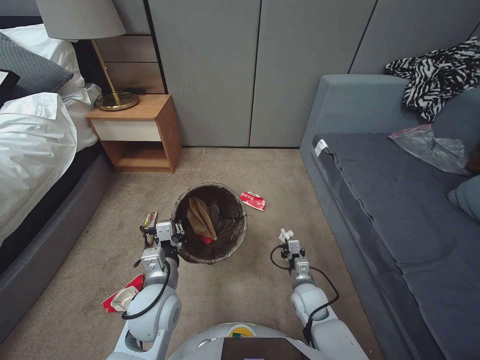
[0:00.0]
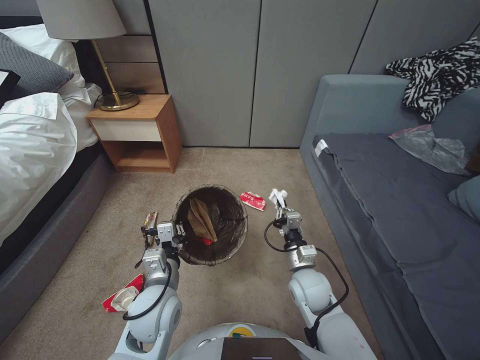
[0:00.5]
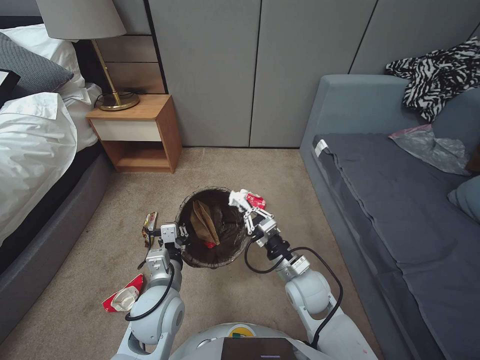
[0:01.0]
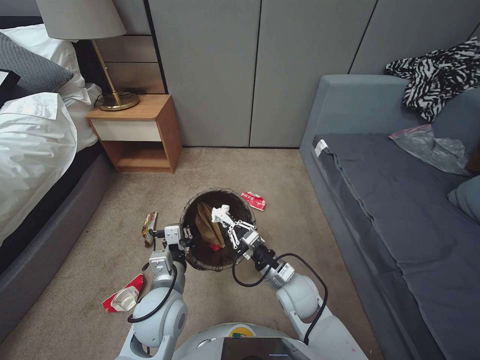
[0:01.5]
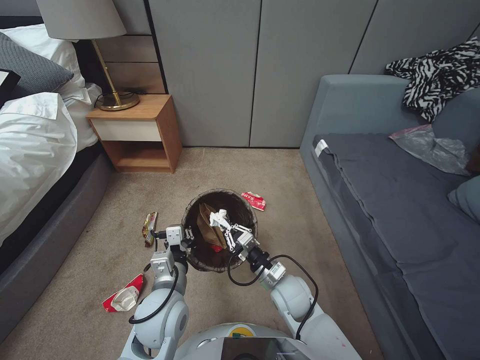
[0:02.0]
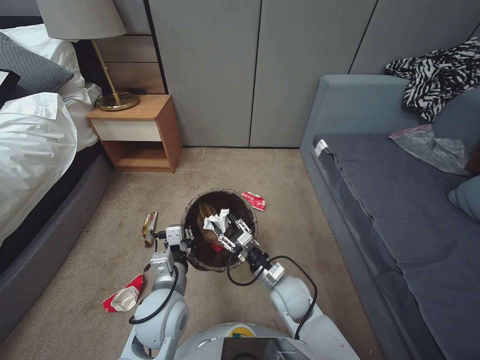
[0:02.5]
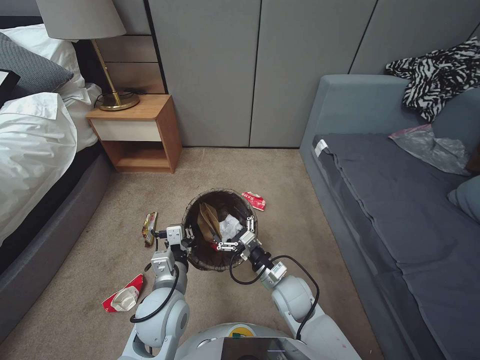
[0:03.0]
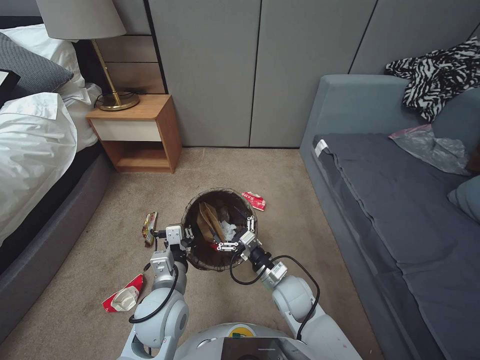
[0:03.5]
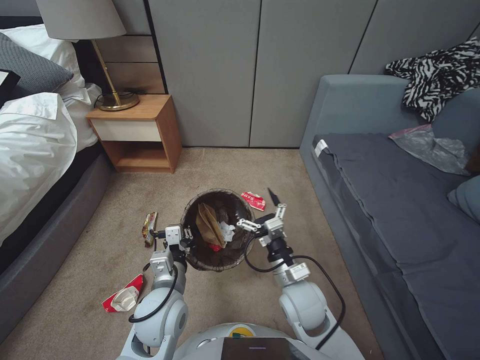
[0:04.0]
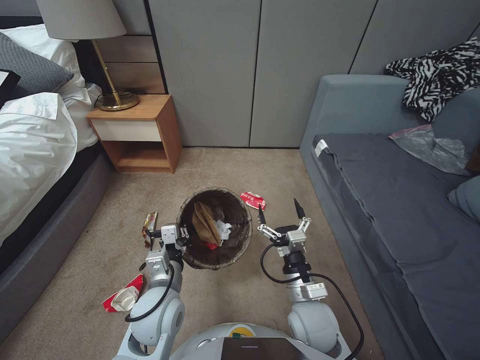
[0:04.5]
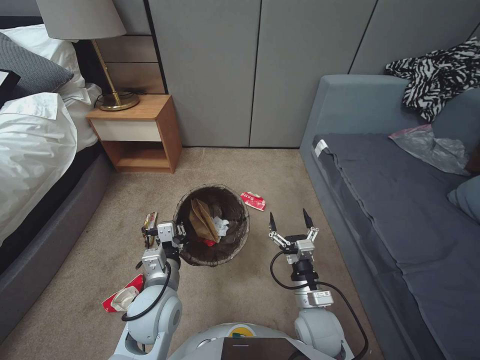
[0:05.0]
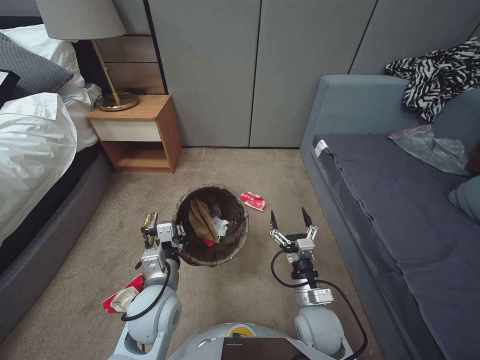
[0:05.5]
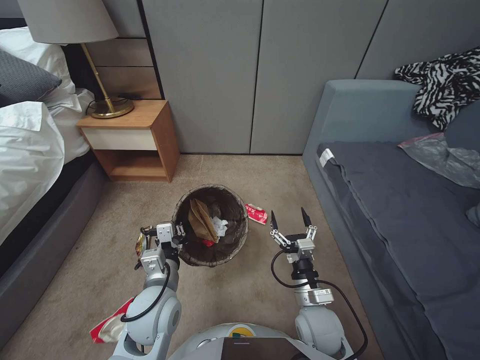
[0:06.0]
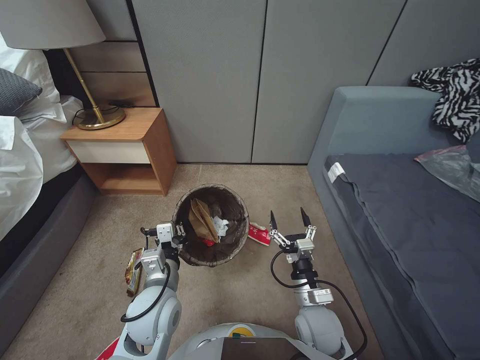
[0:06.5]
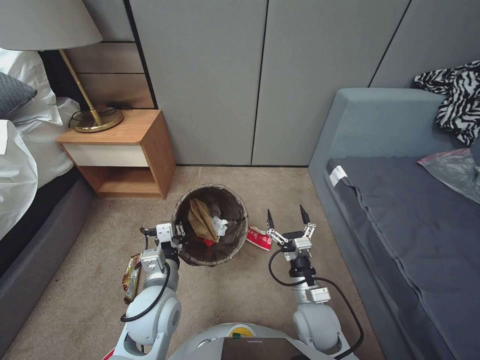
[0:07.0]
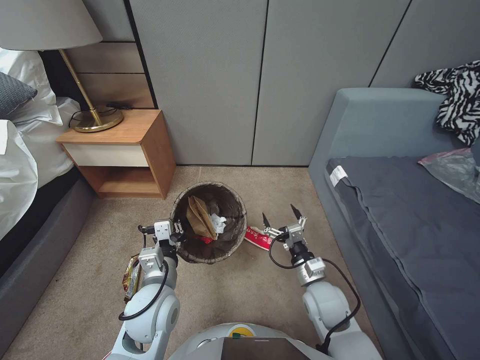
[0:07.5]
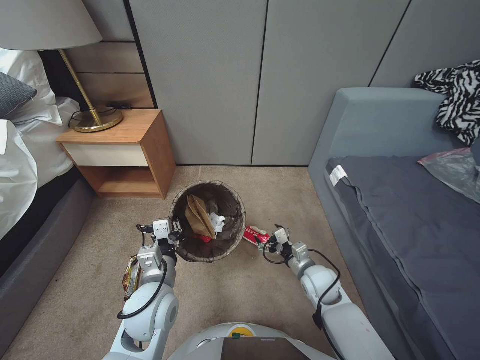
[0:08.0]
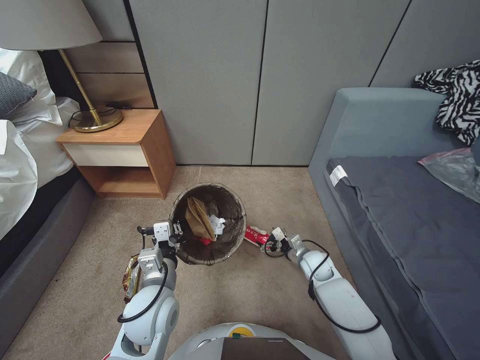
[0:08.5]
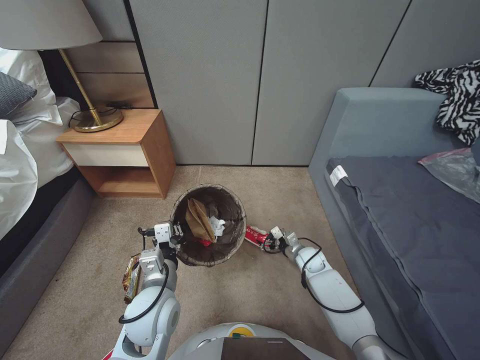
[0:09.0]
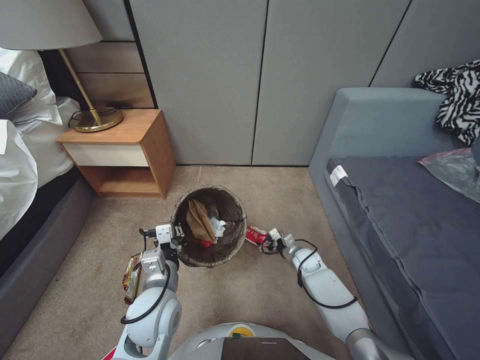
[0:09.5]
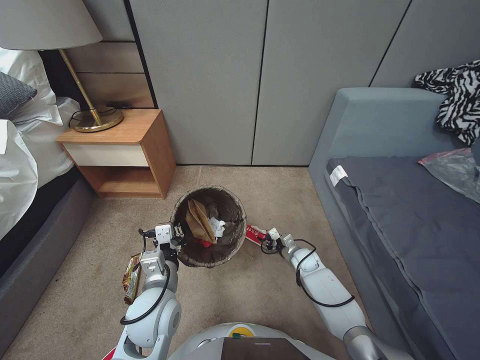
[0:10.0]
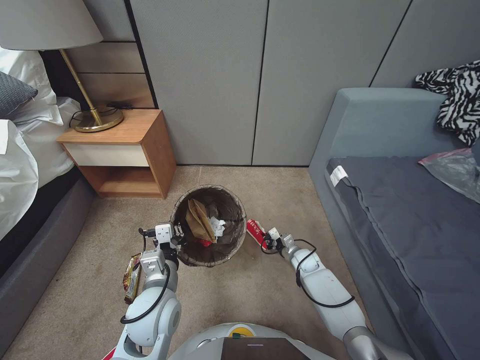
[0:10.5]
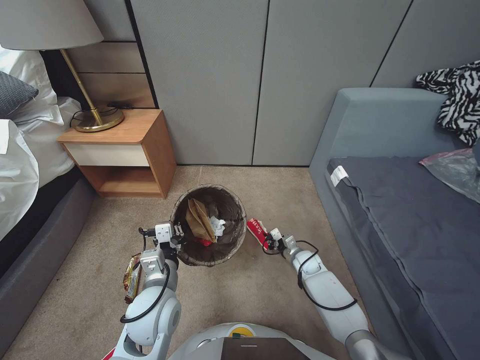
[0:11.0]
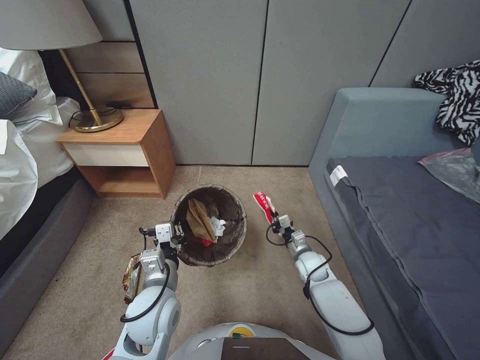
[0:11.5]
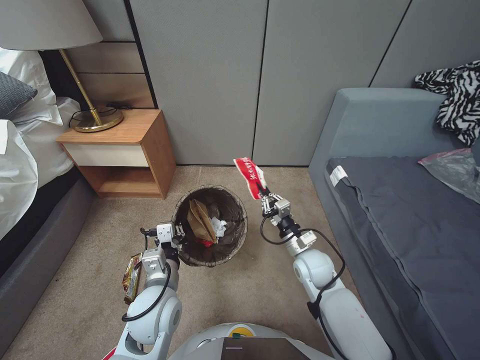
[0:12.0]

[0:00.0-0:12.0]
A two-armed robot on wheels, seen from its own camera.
Task of the whole recording: Pick up the trash bin, then pick up the garbage from the floor and place it into the trash bin.
0:00.0 to 0:02.0: The right gripper heads upward and to the left, covering roughly 15 cm.
0:02.0 to 0:04.0: The right gripper opens up.
0:04.0 to 0:06.0: The right gripper moves backward, about 5 cm.
0:06.0 to 0:08.0: The right gripper goes about 10 cm forward.
0:08.0 to 0:10.0: The right gripper is displaced downward and forward by some 20 cm, and closes its fingers.
0:10.0 to 0:12.0: The right gripper shifts about 20 cm upward and backward, and closes its fingers.

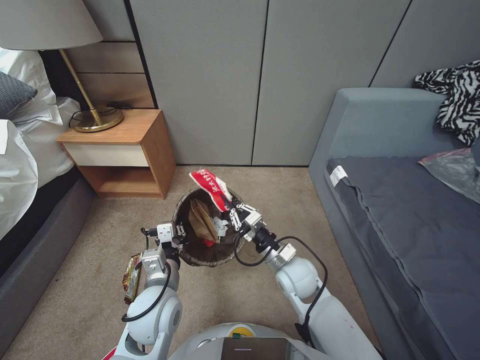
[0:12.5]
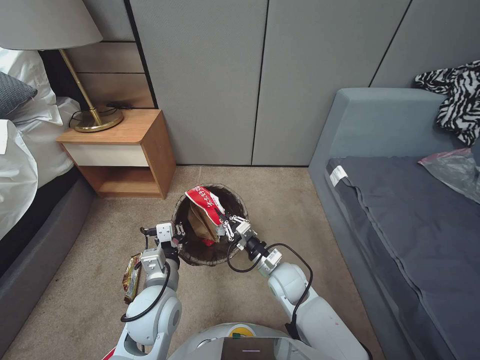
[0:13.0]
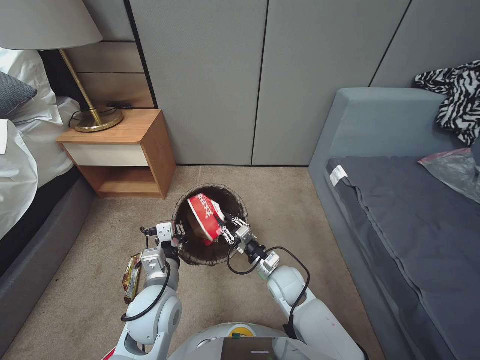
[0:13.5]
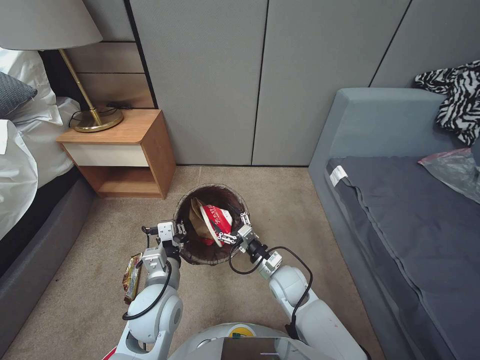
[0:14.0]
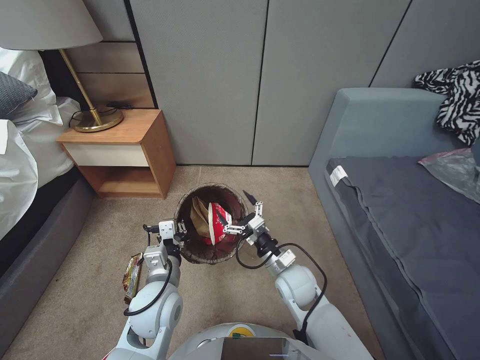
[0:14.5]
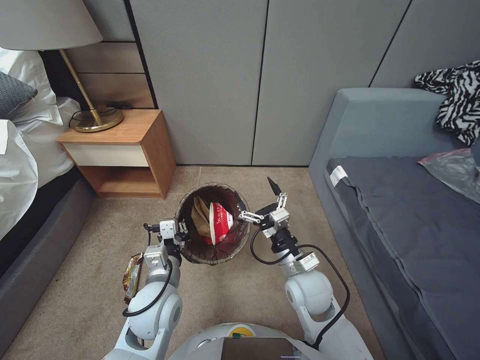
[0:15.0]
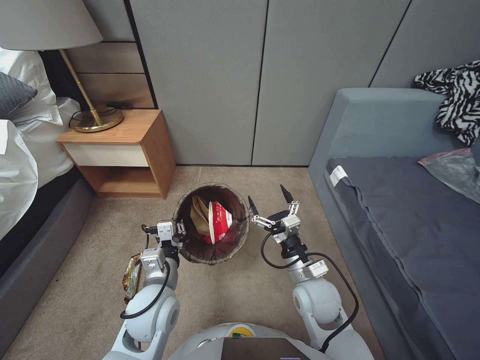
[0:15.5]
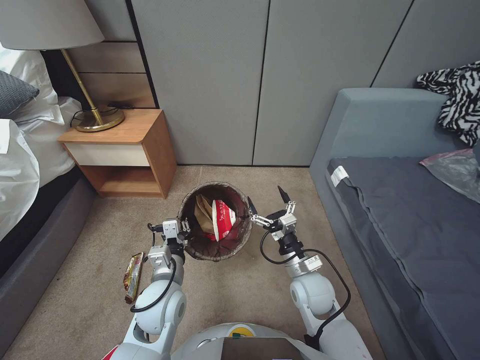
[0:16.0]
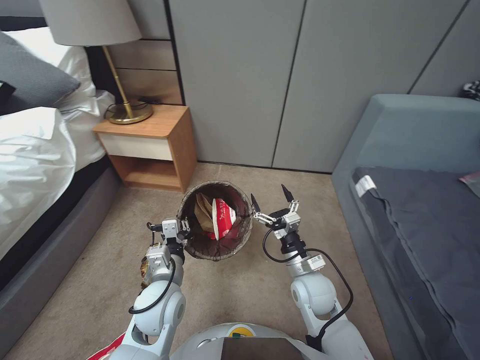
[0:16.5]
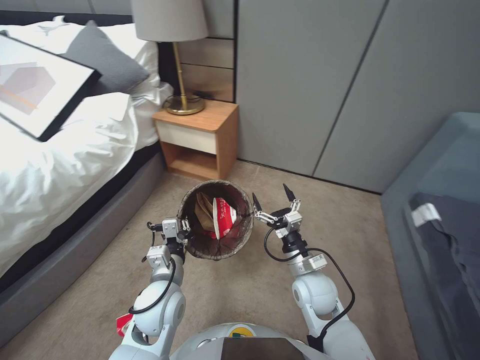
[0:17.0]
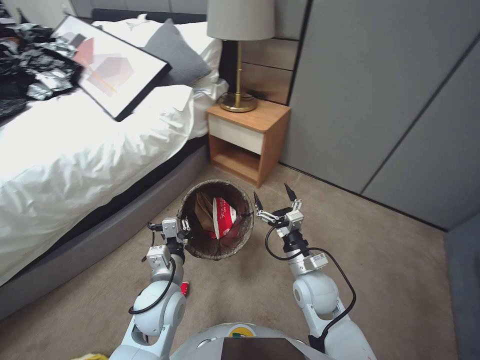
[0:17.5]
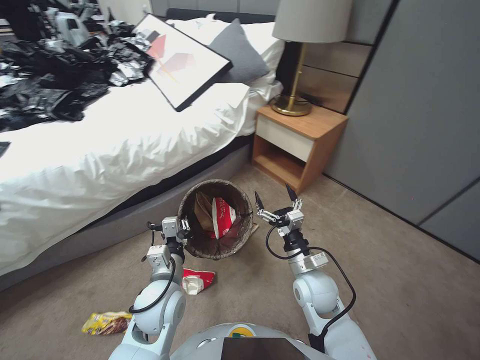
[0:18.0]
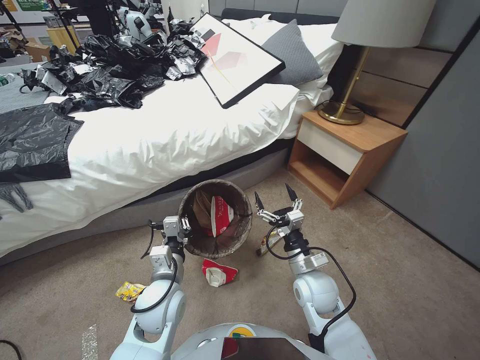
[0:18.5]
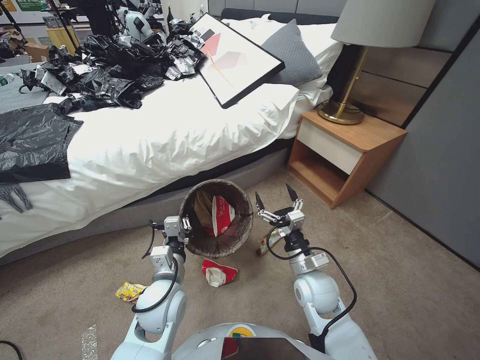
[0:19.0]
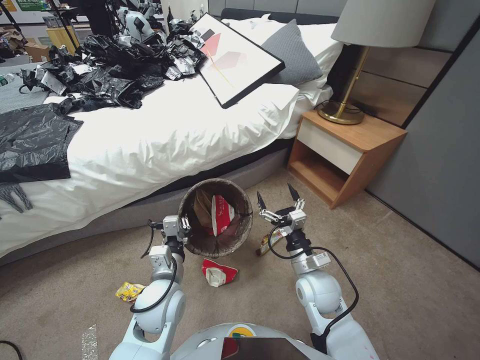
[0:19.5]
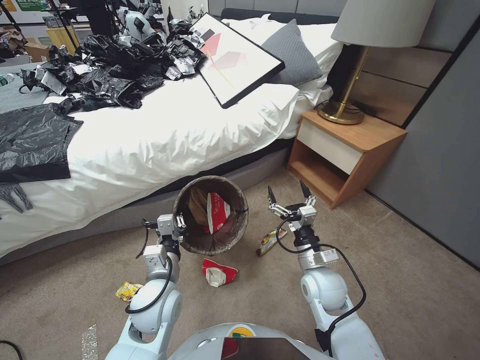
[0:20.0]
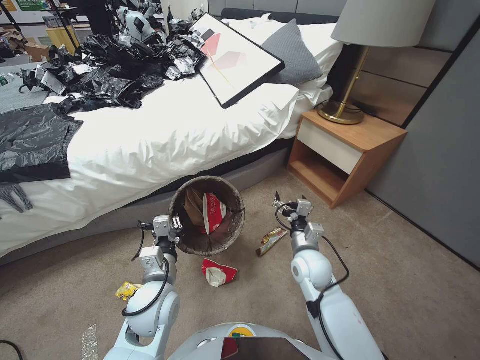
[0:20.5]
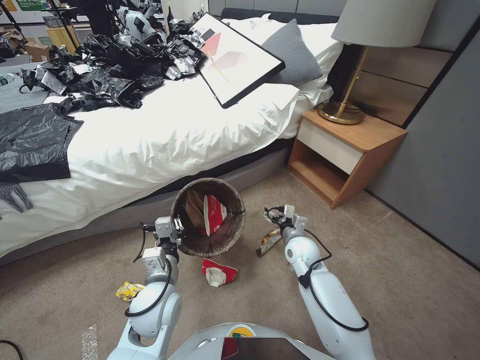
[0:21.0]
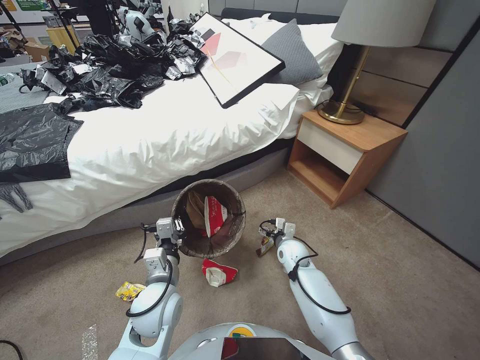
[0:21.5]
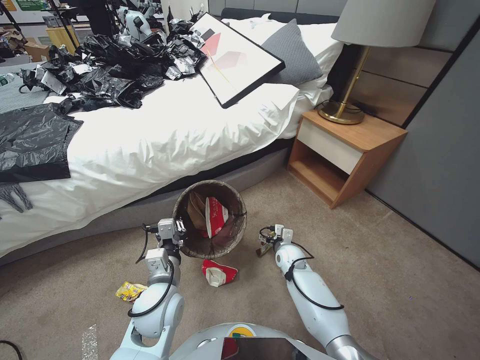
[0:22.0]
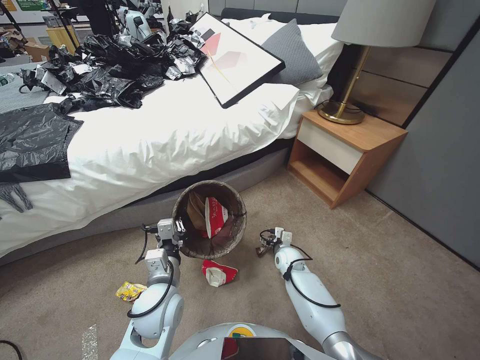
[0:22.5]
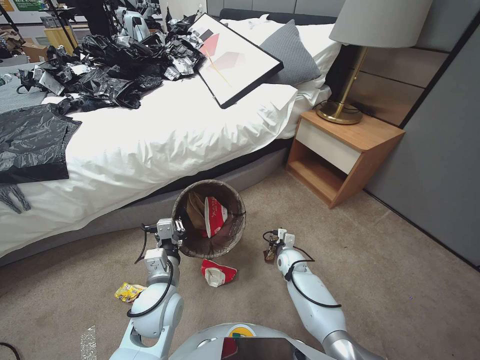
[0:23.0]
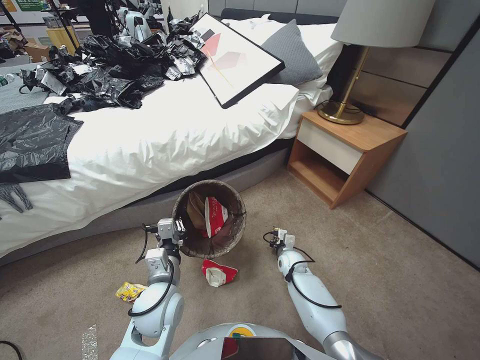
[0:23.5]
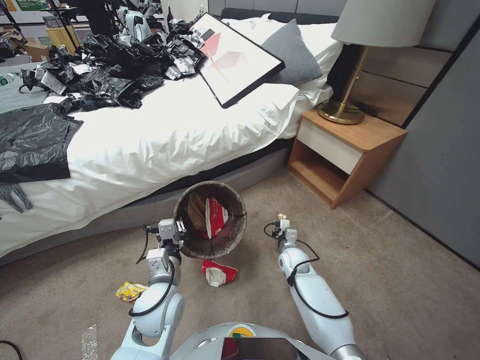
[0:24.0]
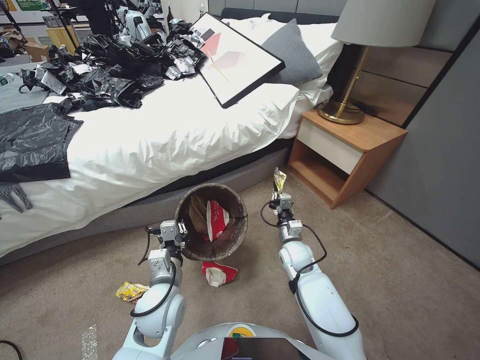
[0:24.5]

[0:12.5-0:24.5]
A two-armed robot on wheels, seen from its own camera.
Task of the whole recording: Pick up the trash bin, then pick up the garbage from the floor and place it into the trash bin.
0:12.5 to 0:14.5: The right gripper opens.
0:14.5 to 0:16.5: The right gripper shifts by some 5 cm.
0:20.5 to 0:22.5: The right gripper goes about 20 cm downward and forward.
0:22.5 to 0:24.5: The right gripper moves upward, approximately 5 cm, and closes.

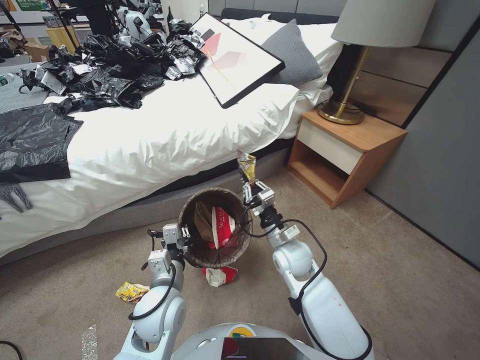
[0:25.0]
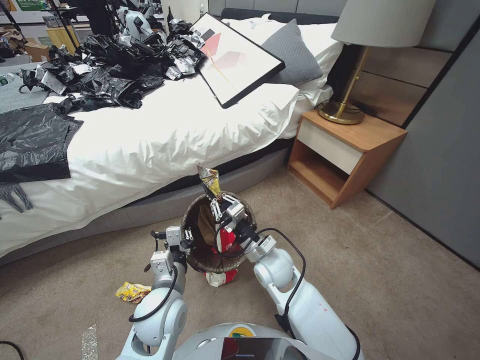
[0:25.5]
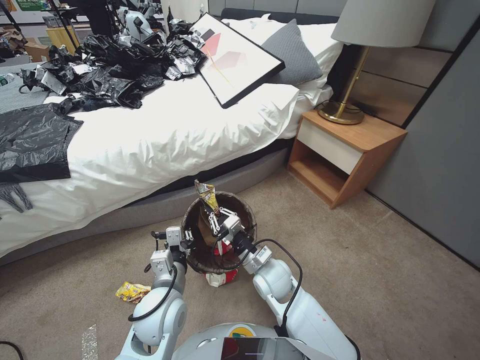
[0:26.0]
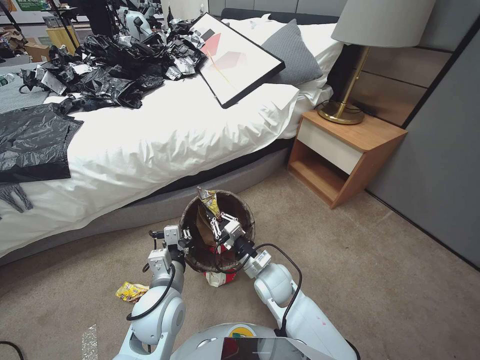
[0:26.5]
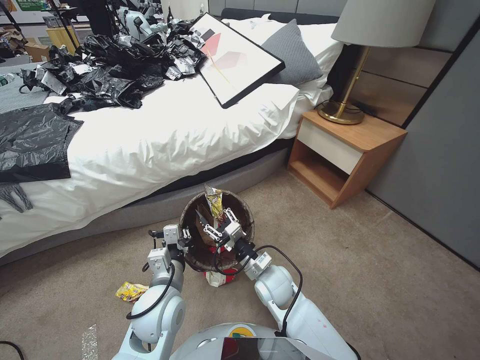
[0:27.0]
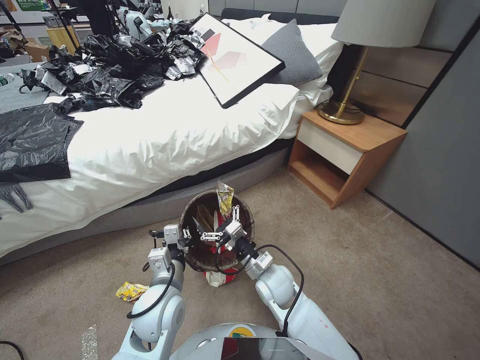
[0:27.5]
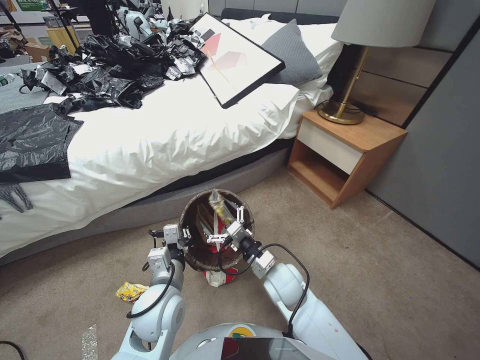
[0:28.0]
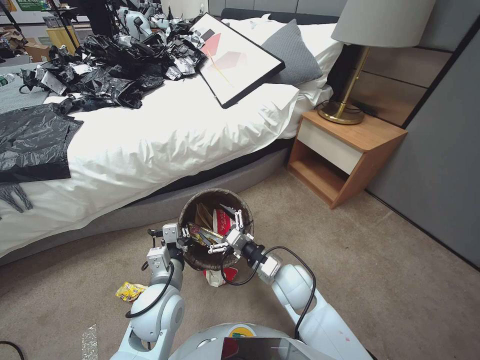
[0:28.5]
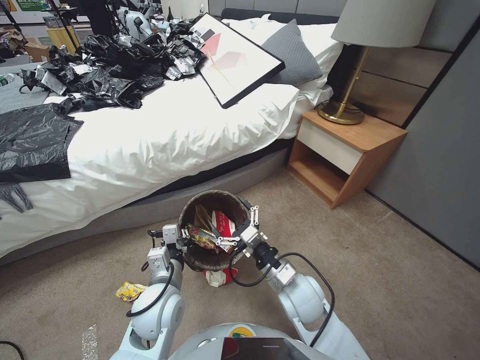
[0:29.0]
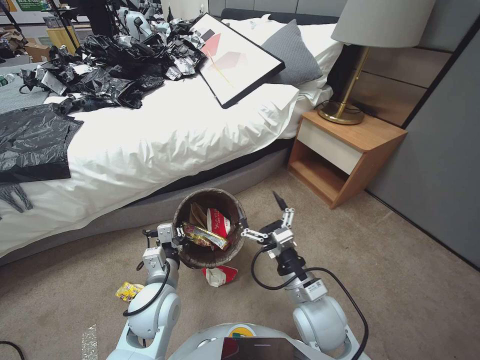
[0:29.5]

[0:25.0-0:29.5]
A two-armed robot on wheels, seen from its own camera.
Task of the whole recording: Pick up the trash bin, then pick up the garbage from the floor and place it into the trash bin.
0:25.0 to 0:27.0: The right gripper travels to the left and backward by some 10 cm, and opens.
0:27.0 to 0:29.5: The right gripper shifts some 5 cm upward, and opens up.
